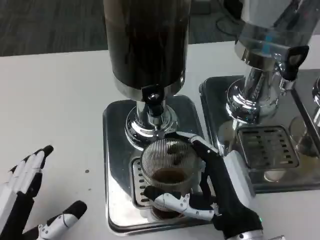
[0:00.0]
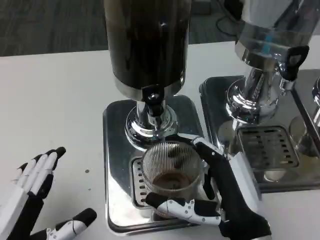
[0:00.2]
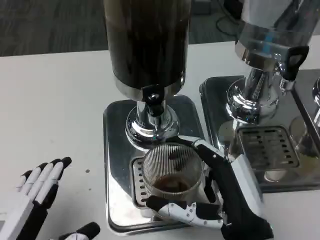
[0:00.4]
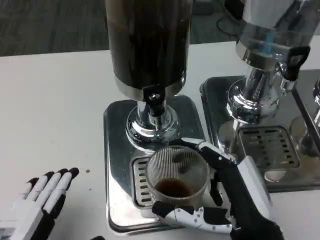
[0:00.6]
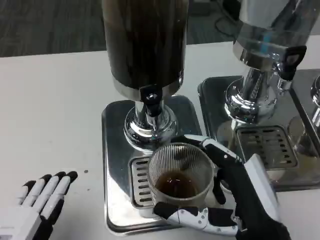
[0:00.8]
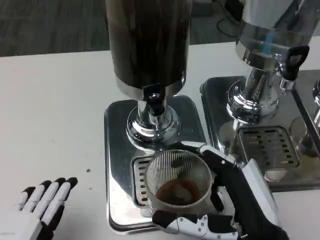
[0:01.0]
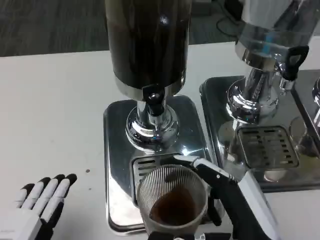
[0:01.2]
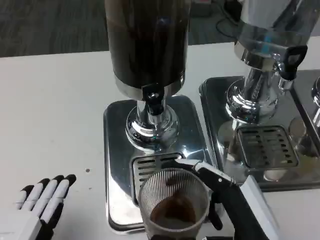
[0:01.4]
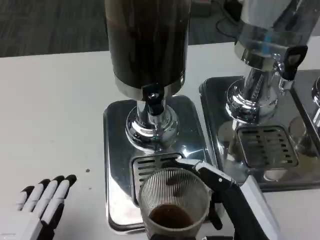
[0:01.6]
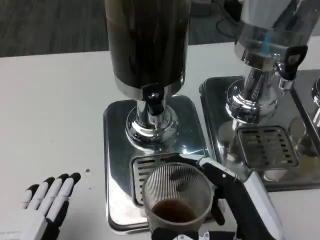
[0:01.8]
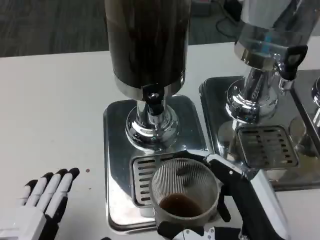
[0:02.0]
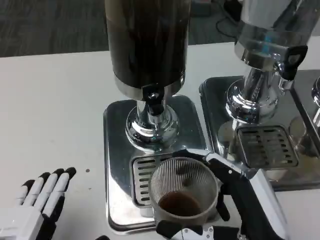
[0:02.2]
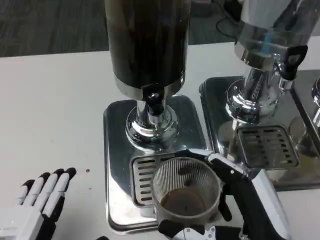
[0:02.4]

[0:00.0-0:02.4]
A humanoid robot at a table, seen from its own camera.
Task of the whole recording: Grasp the cup under the faucet to collect the drink, then remove the cup.
0:00.0 to 0:01.2: The right hand is displaced backward by some 5 cm.
0:01.2 to 0:02.4: The hands stay close to where they were, moving slightly.

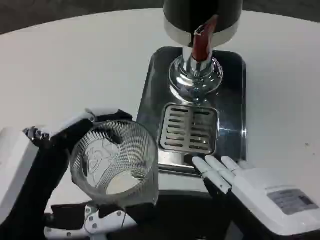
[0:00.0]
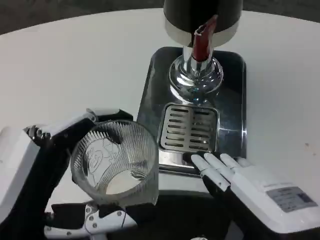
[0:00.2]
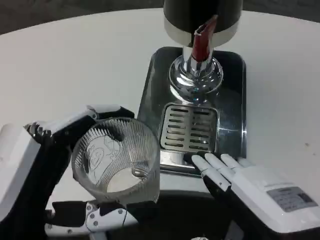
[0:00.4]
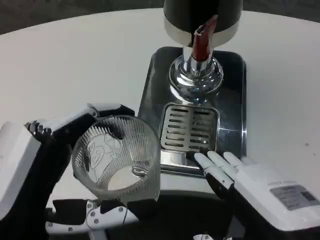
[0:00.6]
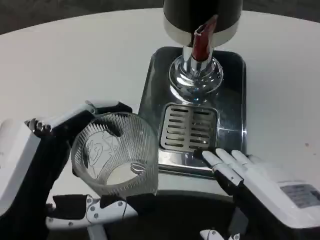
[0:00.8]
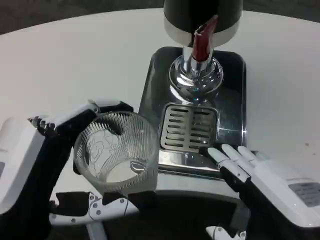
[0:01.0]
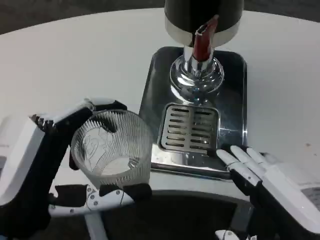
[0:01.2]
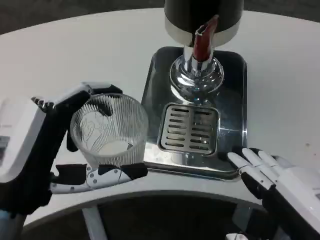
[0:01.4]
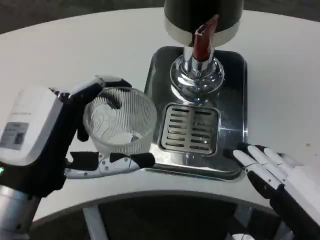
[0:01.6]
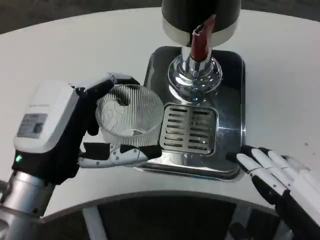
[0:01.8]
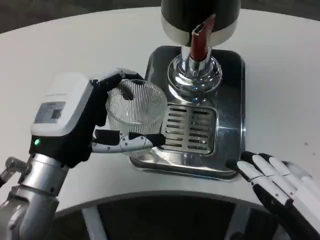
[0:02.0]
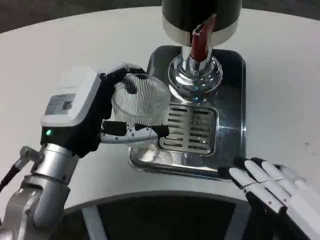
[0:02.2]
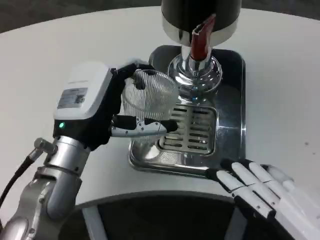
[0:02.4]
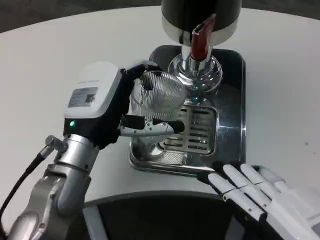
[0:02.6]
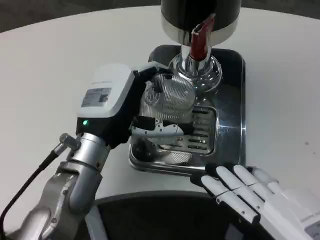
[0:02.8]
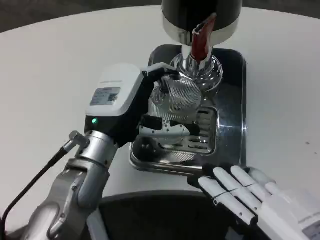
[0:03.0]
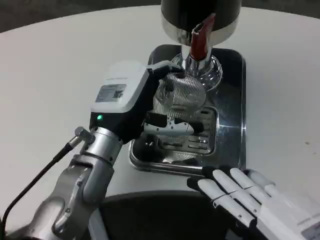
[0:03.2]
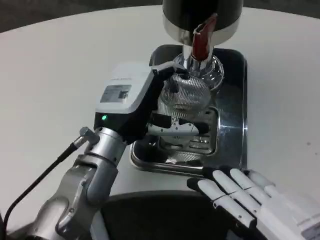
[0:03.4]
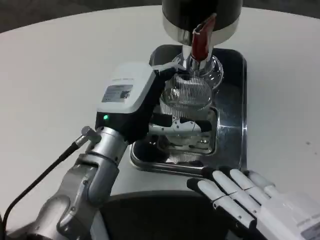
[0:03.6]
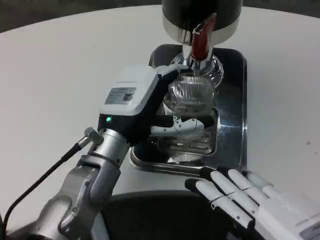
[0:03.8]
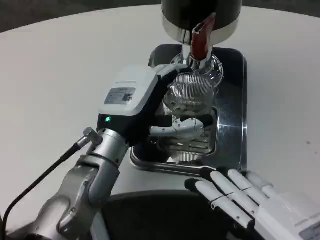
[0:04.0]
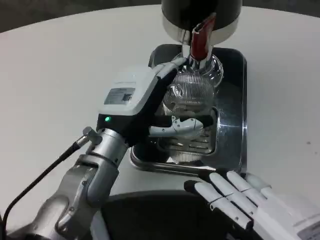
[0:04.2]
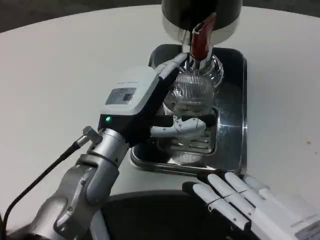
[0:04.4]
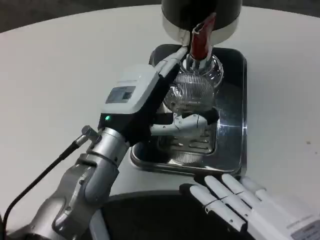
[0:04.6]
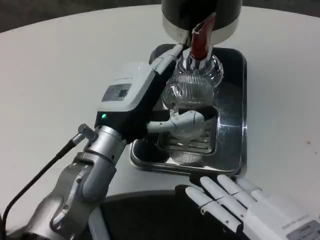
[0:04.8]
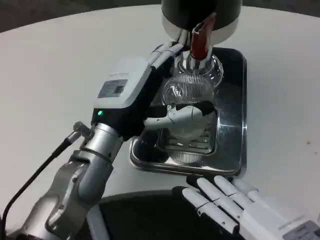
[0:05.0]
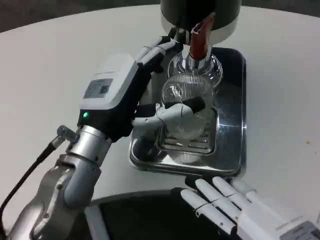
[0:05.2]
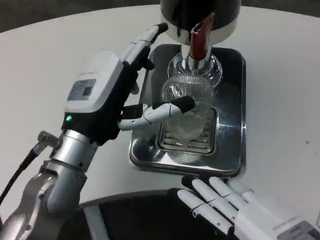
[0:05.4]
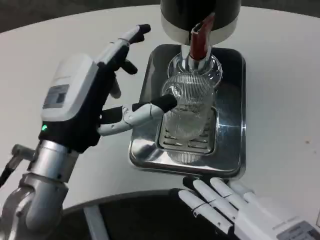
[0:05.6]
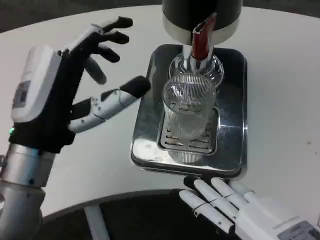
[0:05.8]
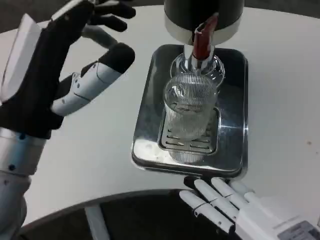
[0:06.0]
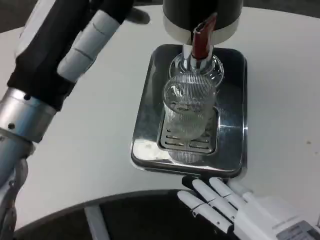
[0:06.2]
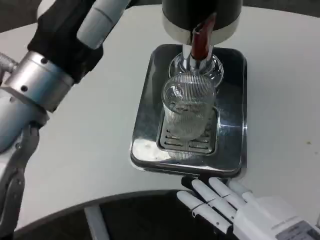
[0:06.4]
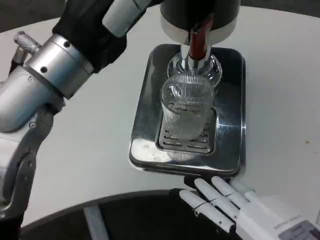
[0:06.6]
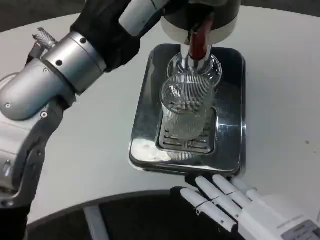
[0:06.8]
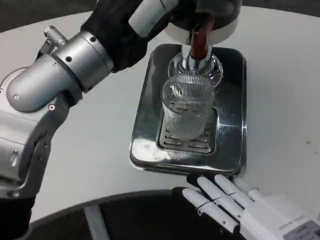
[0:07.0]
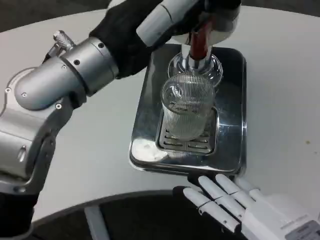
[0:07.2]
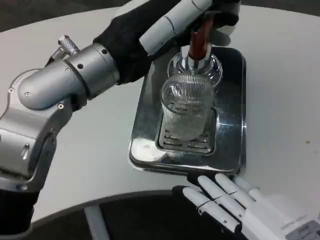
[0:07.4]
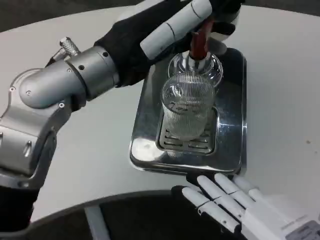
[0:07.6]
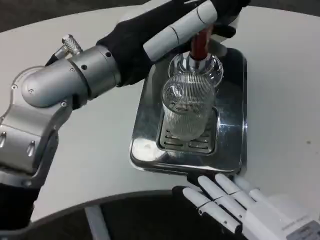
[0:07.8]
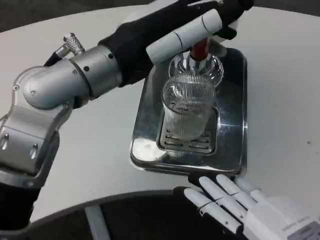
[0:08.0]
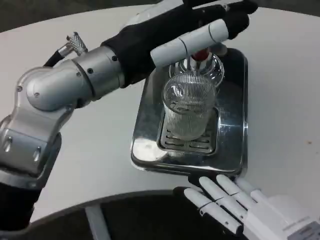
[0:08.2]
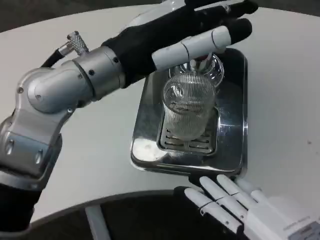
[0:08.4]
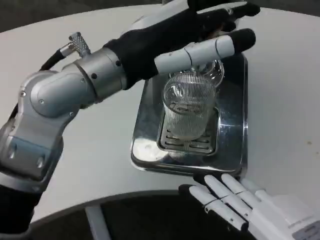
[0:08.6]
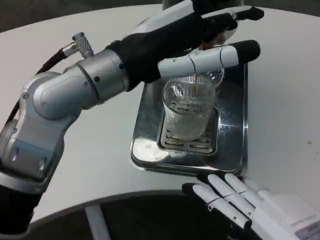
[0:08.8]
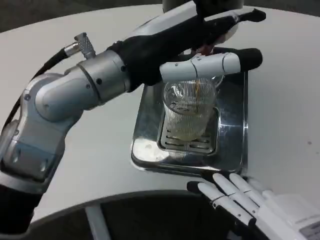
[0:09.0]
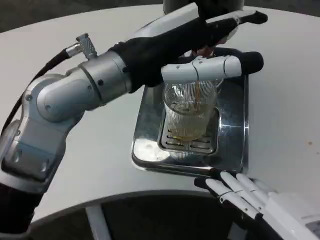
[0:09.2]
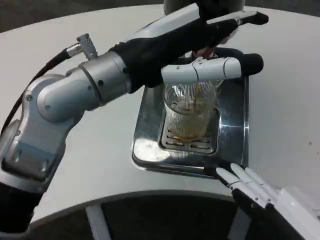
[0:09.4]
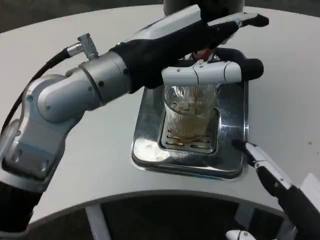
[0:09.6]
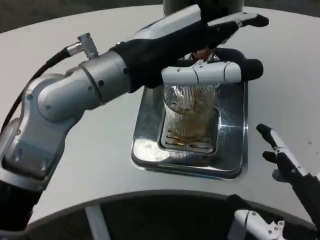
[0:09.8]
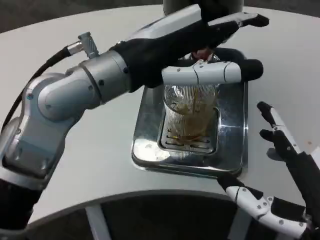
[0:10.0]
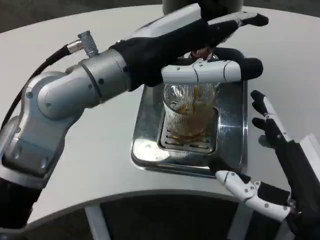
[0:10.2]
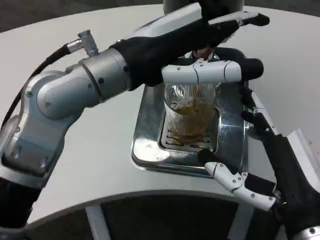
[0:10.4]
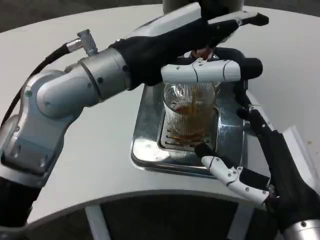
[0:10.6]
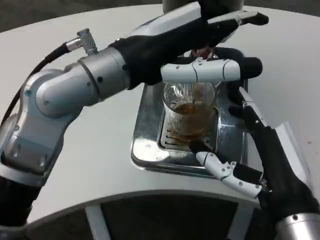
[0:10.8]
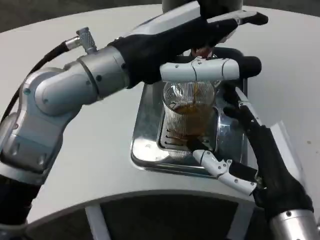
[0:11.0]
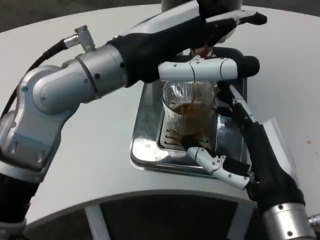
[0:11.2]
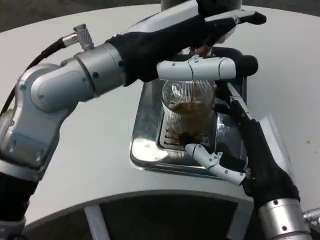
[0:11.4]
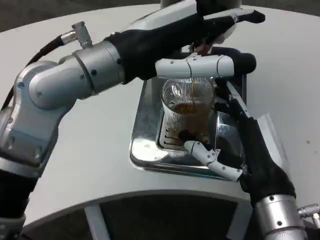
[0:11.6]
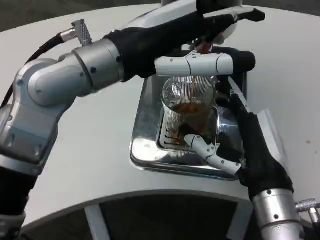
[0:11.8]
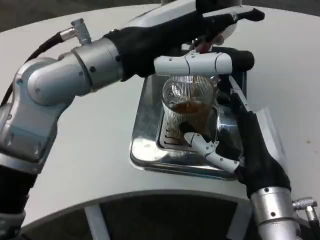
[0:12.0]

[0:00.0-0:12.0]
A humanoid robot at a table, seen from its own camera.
Task of the whole recording: Grasp the cup under the faucet to collect the drink, then remove the cup.
0:00.0 to 0:01.6: The left hand heads forward, covering some 5 cm.
0:01.6 to 0:03.0: The left hand travels forward and to the right by approximately 10 cm.
0:04.4 to 0:06.0: The left hand shifts approximately 10 cm backward, to the left and upward.
0:06.0 to 0:07.6: The left hand goes roughly 10 cm upward and forward.
0:09.0 to 0:10.4: The right hand travels forward by roughly 10 cm.
0:10.4 to 0:12.0: The right hand is displaced forward by some 5 cm.

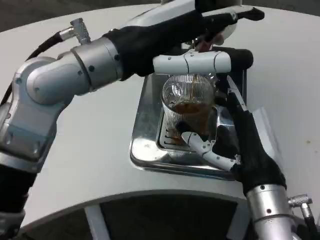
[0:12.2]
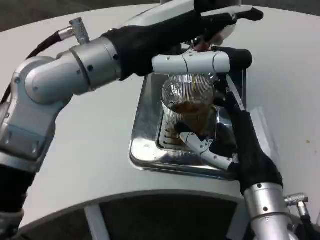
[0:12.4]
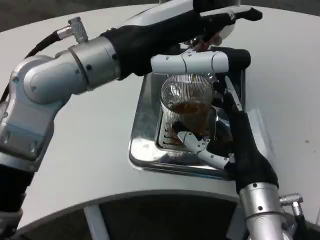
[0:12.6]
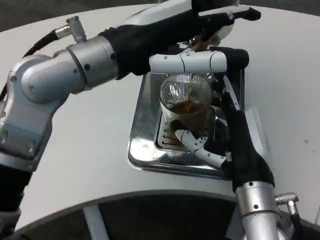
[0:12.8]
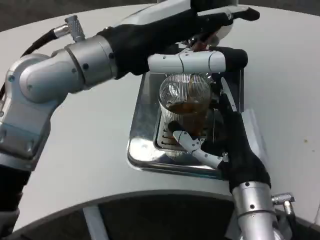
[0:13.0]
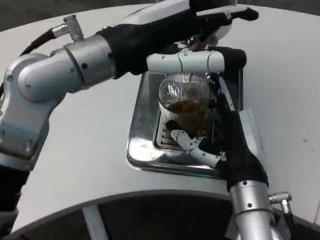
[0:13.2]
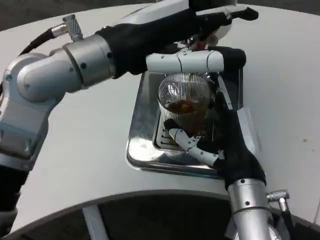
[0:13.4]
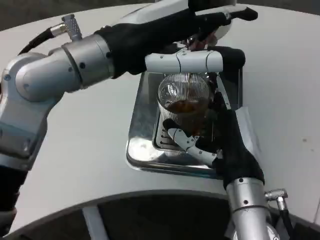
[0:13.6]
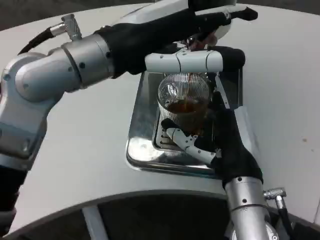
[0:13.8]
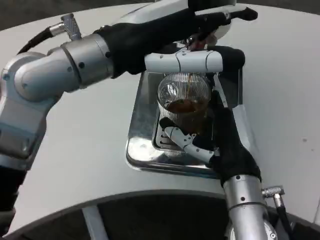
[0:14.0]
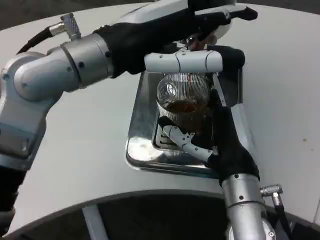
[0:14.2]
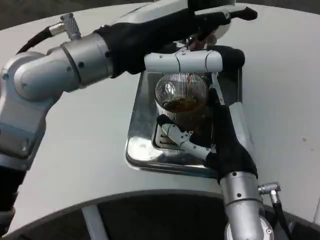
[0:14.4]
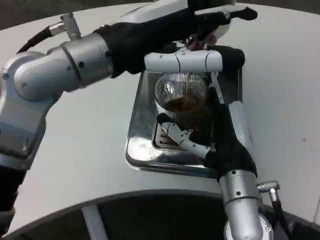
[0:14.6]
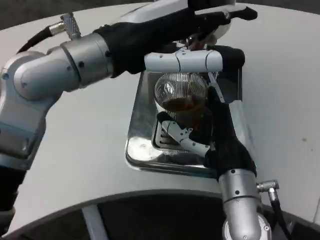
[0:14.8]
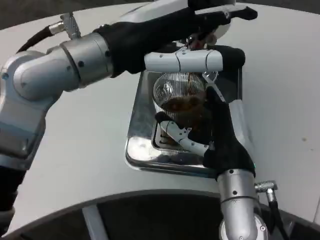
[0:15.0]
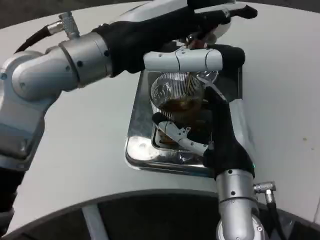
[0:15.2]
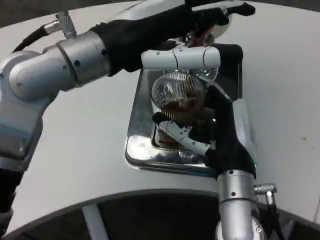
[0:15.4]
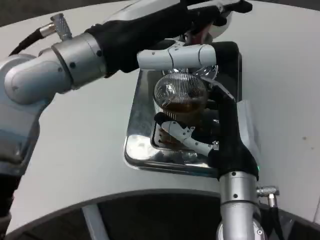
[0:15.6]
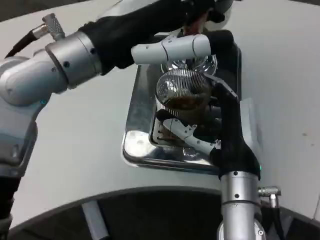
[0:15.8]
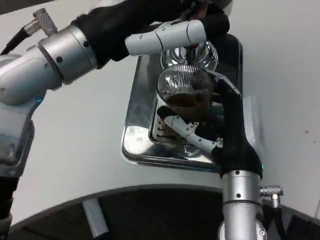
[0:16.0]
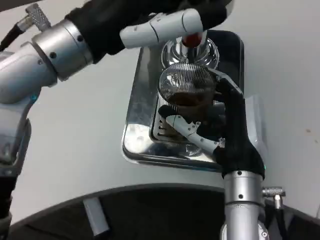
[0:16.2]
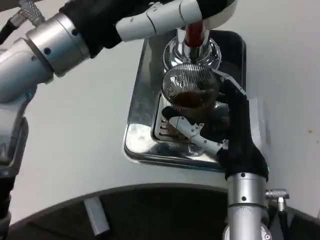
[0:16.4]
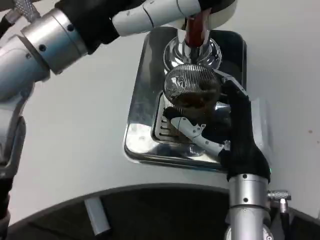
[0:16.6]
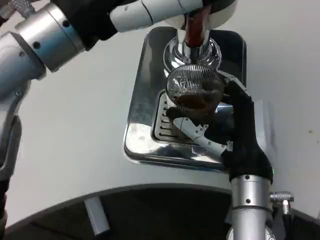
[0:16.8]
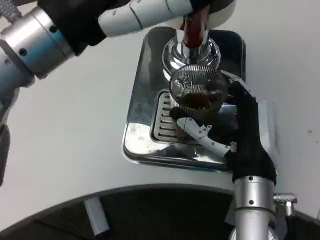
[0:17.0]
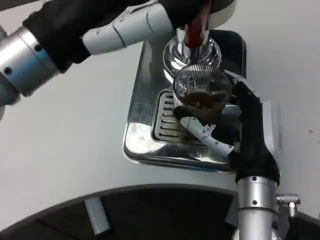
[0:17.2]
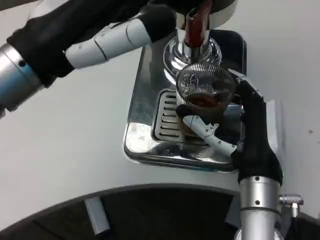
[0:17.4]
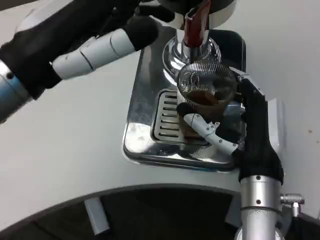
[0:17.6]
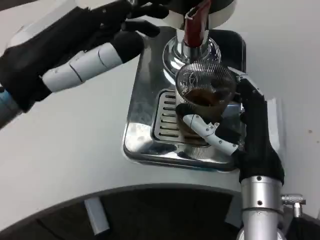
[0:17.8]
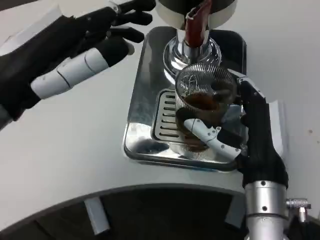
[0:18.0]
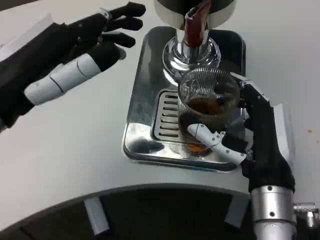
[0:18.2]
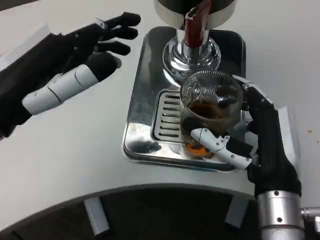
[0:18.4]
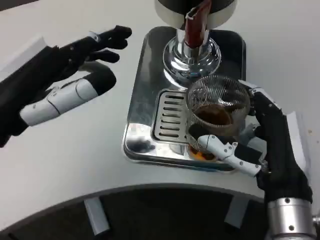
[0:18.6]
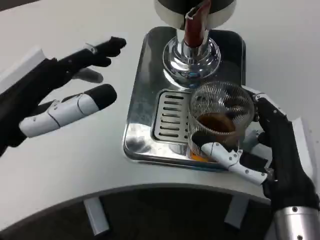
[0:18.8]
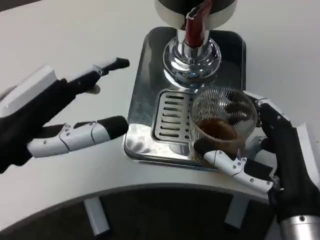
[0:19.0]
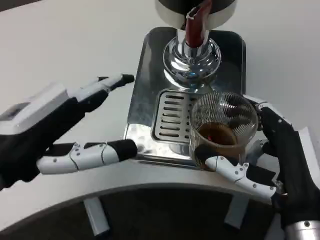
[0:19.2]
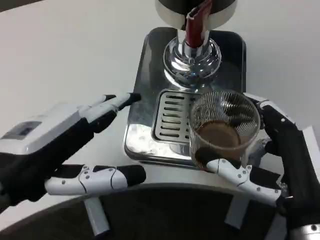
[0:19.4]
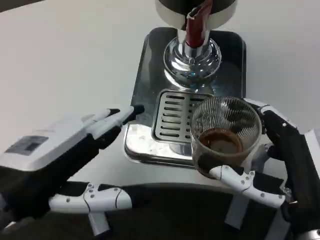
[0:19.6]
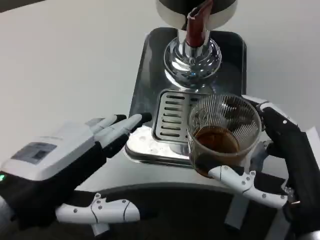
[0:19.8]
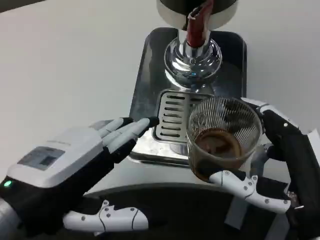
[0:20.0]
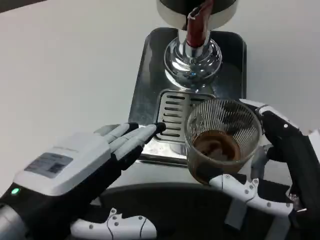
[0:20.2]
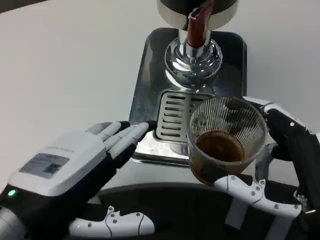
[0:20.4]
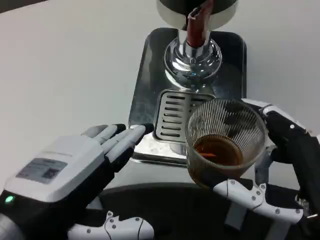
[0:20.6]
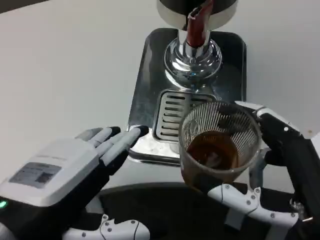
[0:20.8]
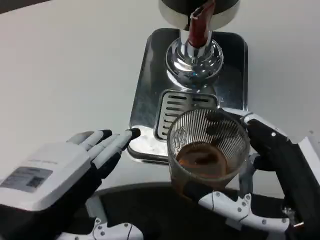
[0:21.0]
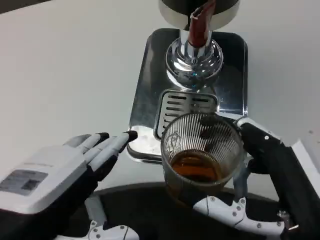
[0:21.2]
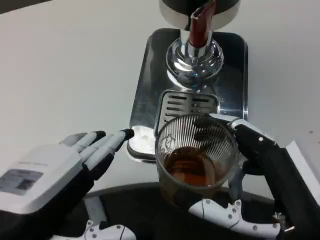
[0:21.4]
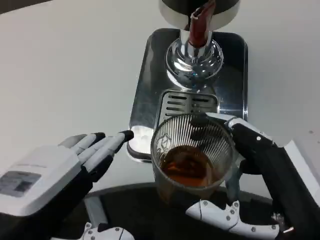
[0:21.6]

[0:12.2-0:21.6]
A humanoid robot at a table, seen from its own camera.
Task of the whole recording: Grasp the cup under the faucet to collect the drink, then remove the cup.
0:17.0 to 0:18.4: The left hand goes about 10 cm downward and to the left.
0:18.4 to 0:20.0: Both hands move backward, roughly 5 cm.
